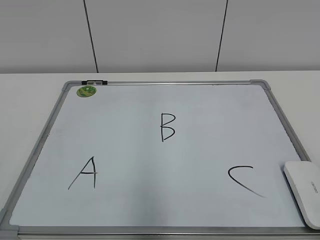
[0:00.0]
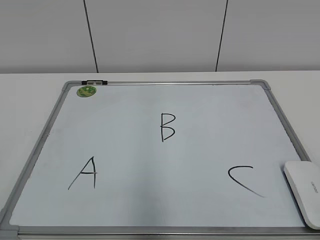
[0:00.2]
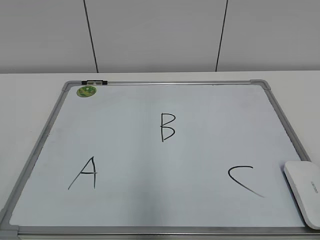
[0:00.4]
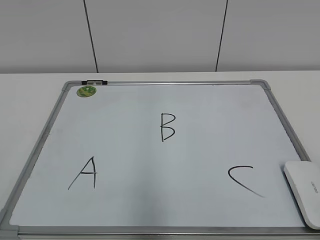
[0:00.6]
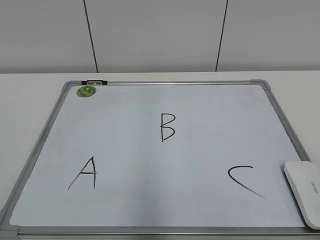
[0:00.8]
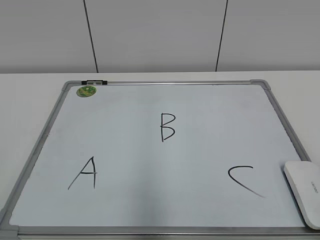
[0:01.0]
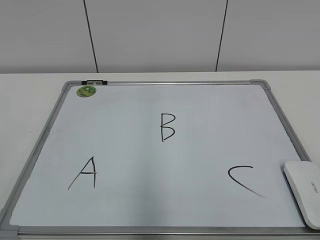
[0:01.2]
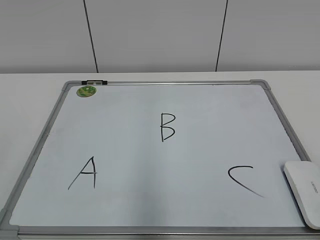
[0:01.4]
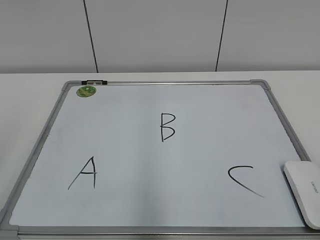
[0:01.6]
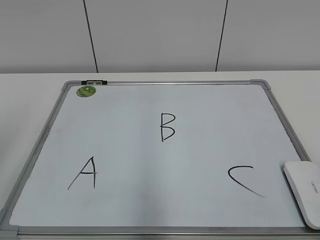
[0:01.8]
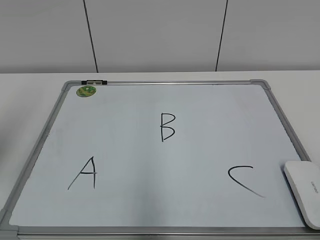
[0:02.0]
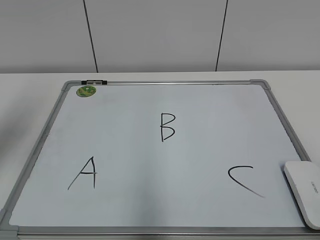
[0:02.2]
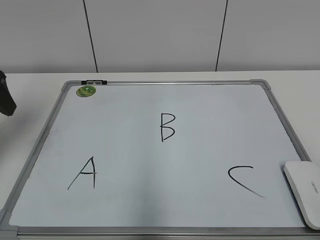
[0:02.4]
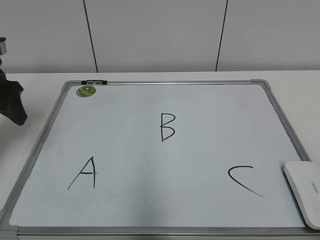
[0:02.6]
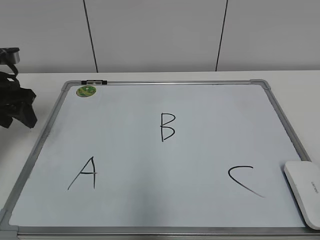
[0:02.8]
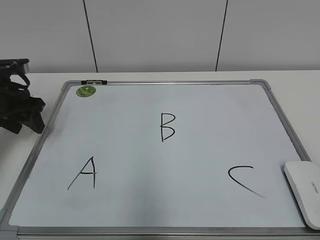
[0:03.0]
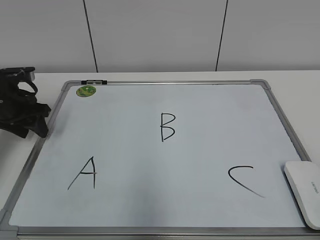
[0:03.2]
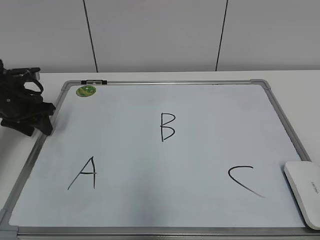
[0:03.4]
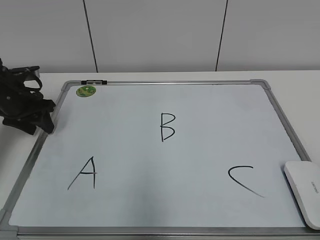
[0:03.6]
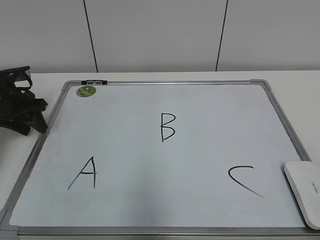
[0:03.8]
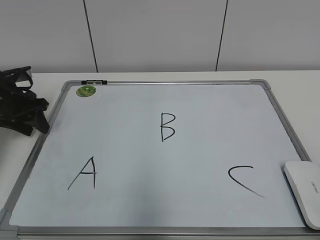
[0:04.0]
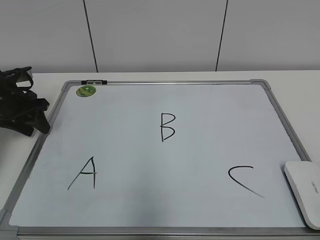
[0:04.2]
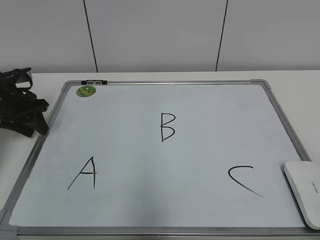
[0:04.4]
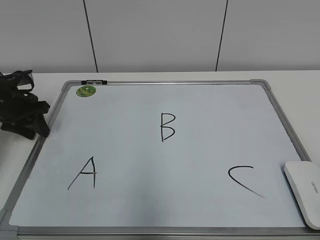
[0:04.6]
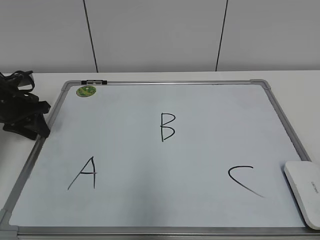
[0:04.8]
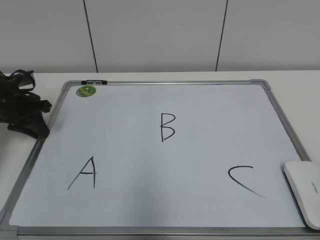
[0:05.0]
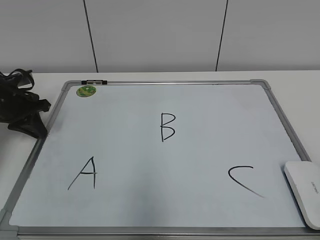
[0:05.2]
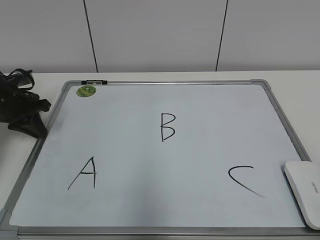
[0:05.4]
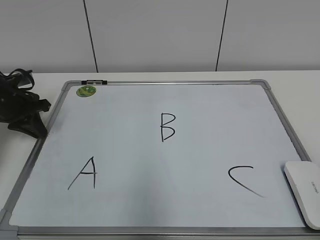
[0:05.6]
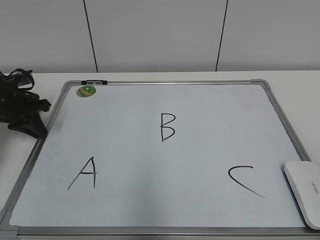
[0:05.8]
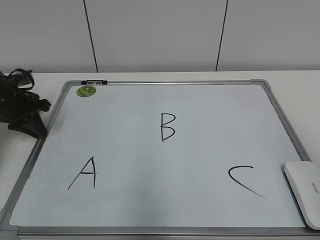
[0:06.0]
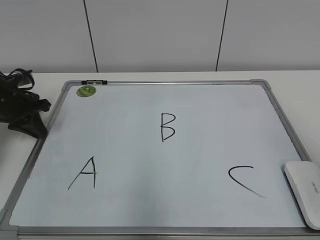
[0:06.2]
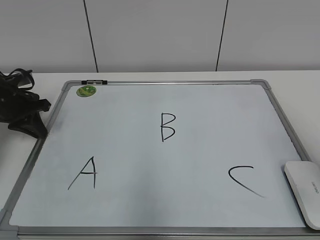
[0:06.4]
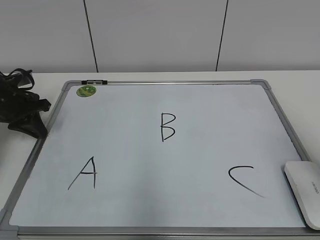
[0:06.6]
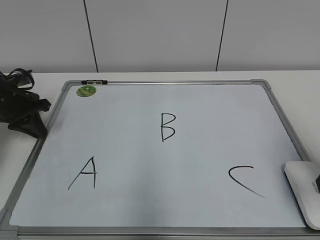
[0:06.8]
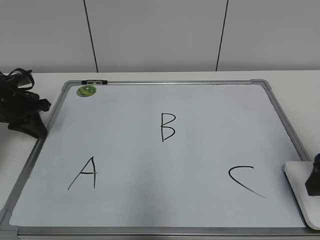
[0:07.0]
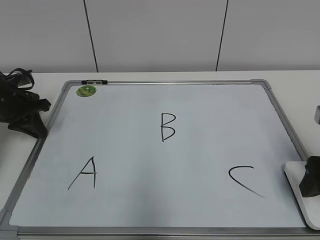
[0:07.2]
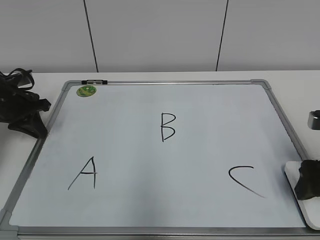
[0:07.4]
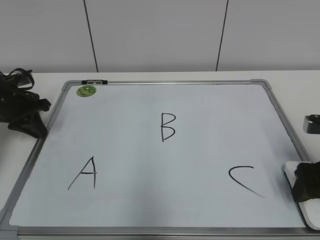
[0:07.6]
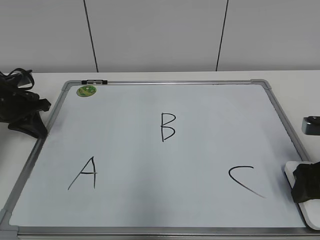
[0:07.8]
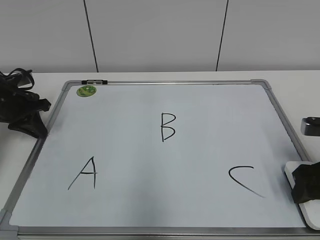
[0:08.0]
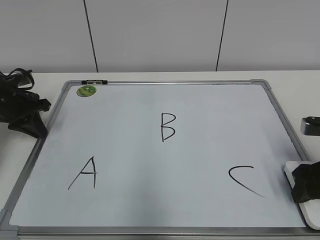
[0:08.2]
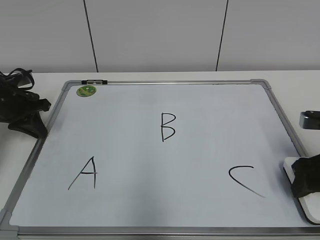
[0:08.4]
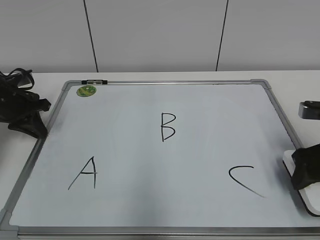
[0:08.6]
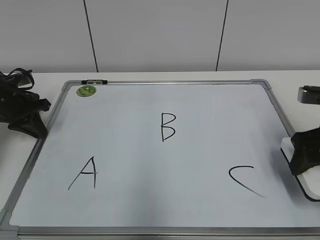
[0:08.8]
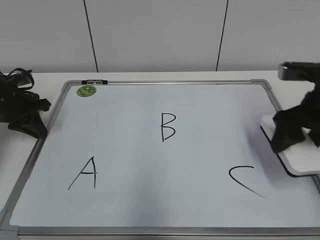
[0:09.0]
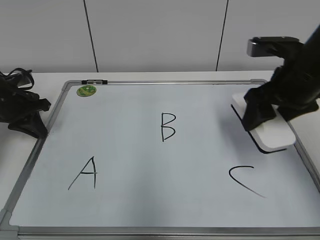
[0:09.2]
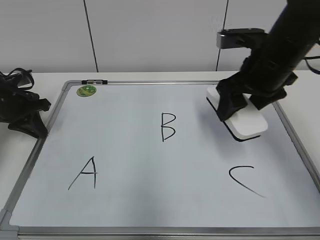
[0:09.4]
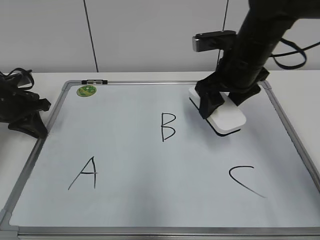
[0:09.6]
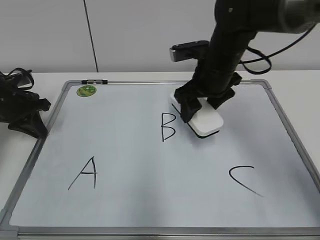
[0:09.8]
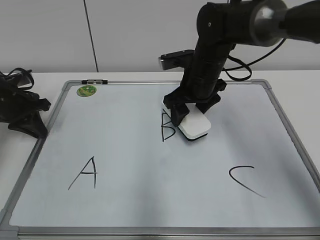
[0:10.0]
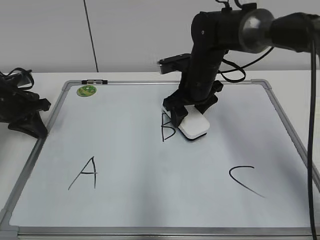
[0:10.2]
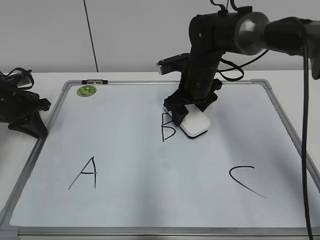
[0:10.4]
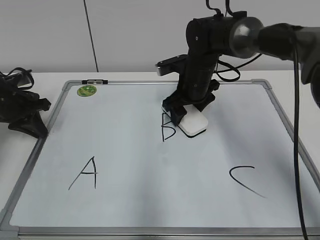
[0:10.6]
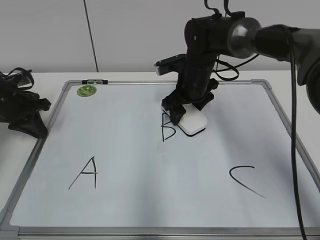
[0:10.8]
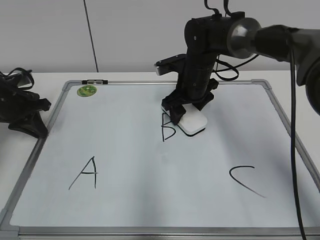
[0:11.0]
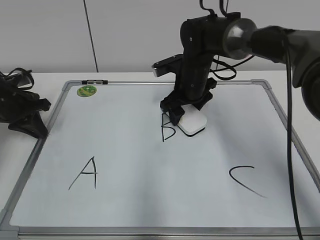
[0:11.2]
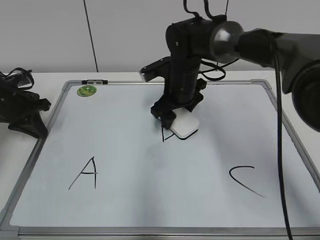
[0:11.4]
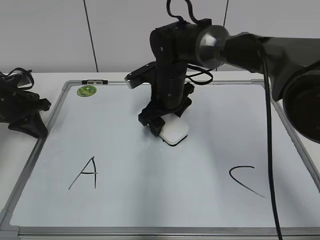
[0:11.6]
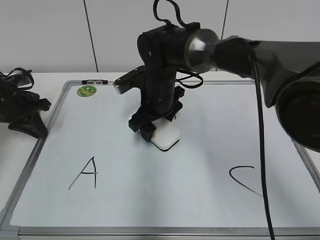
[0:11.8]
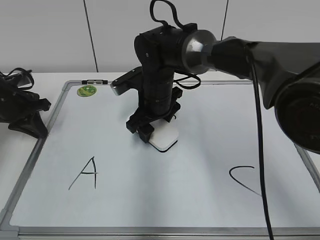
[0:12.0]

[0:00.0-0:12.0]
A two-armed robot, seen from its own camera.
Task of the whole recording: pick up the eraser on the blackboard and erase the letter "B".
Step, 0:00.0 to 0:05.2: Hold the drawing board steady with your left hand.
0:01.6 to 0:03.0: The left gripper heads forward and downward, covering about 35 cm.
0:03.0 to 0:04.4: The left gripper changes place by about 5 cm.
0:04.4 to 0:06.0: The left gripper closes its fingers.
0:06.0 to 0:07.6: The right gripper shifts some 25 cm forward and downward, and opens.
0:07.6 to 0:09.0: The right gripper is displaced upward and forward by roughly 10 cm, and closes its fingers.
0:09.0 to 0:10.4: The right gripper heads to the left and forward, covering approximately 25 cm.
0:10.4 to 0:12.0: The right gripper heads to the left, covering about 10 cm.

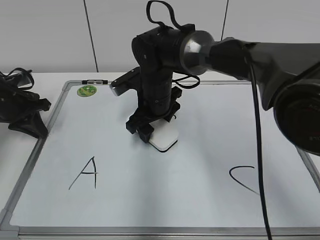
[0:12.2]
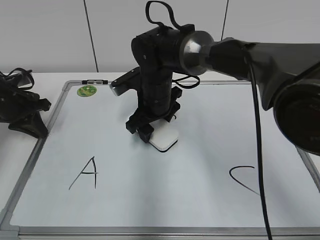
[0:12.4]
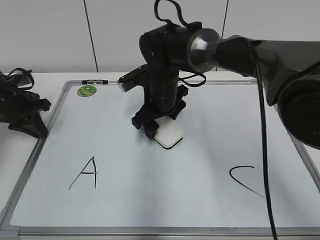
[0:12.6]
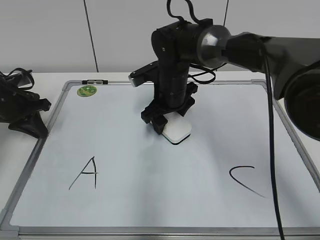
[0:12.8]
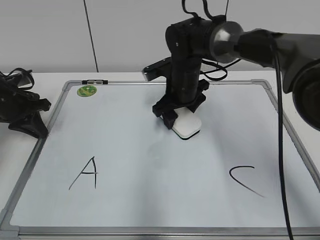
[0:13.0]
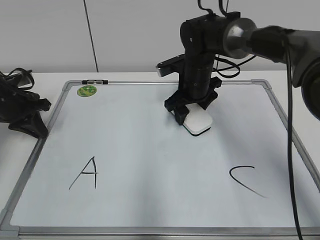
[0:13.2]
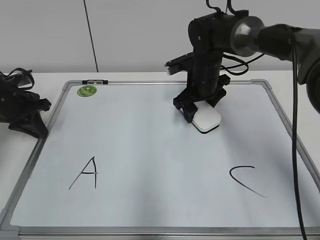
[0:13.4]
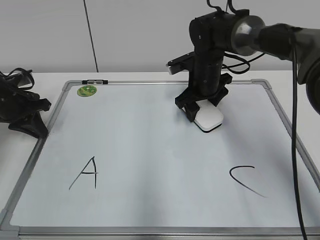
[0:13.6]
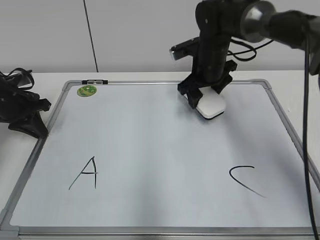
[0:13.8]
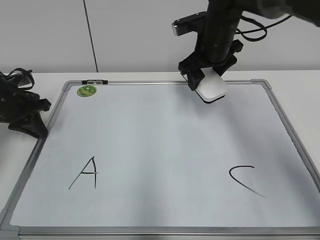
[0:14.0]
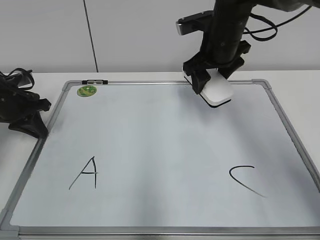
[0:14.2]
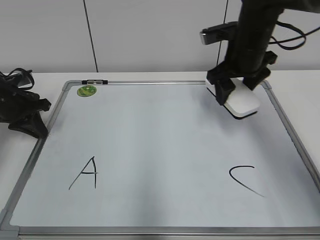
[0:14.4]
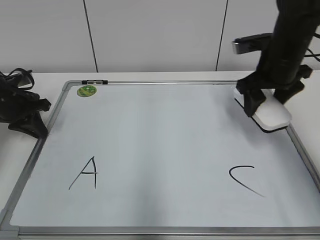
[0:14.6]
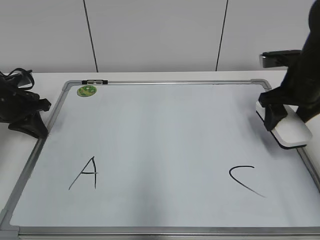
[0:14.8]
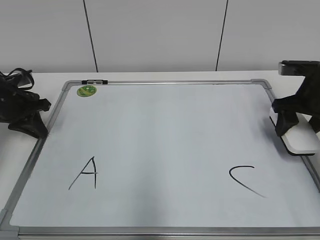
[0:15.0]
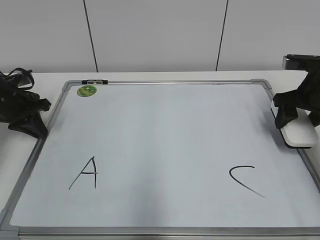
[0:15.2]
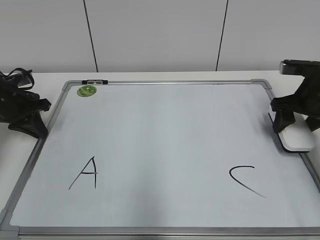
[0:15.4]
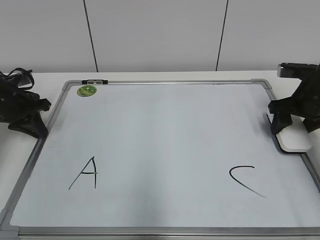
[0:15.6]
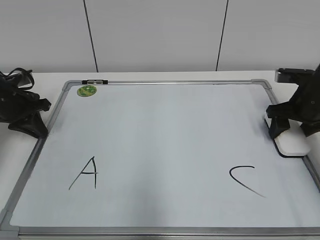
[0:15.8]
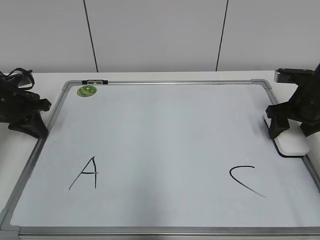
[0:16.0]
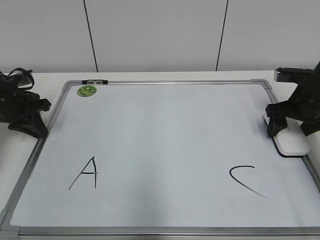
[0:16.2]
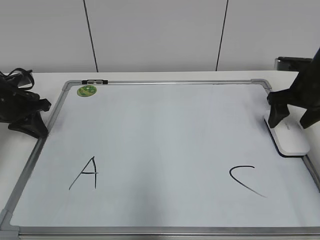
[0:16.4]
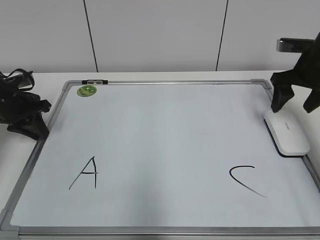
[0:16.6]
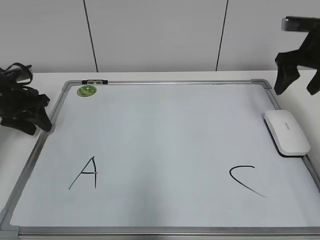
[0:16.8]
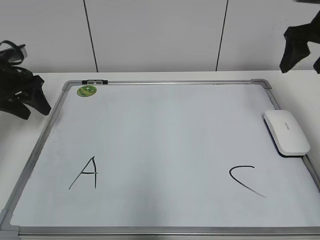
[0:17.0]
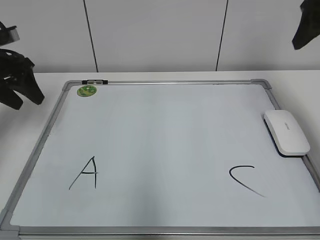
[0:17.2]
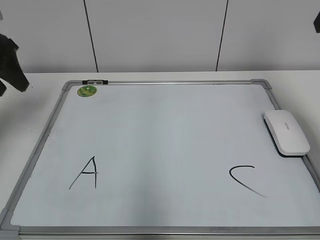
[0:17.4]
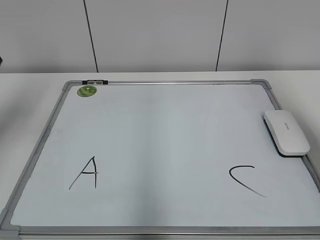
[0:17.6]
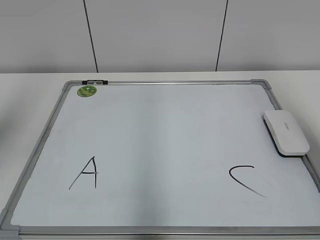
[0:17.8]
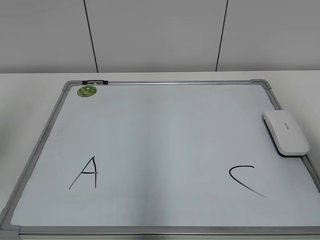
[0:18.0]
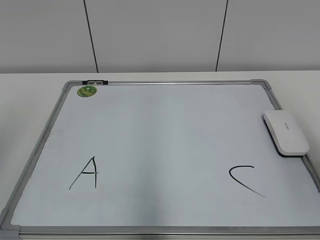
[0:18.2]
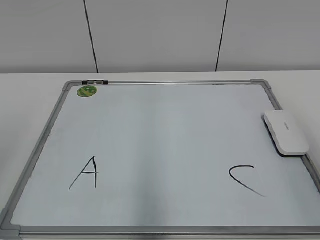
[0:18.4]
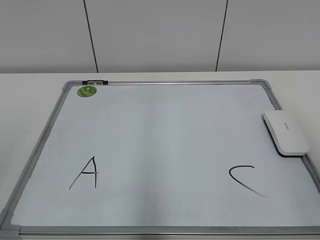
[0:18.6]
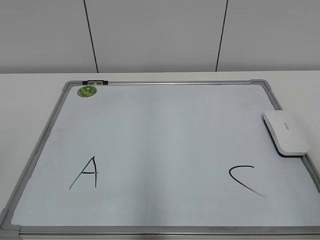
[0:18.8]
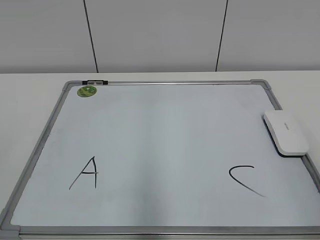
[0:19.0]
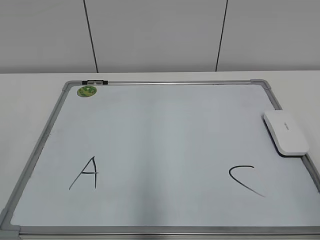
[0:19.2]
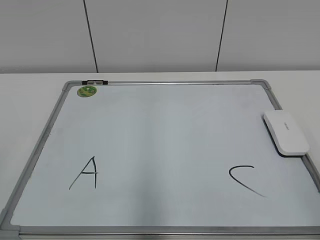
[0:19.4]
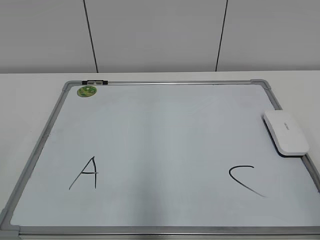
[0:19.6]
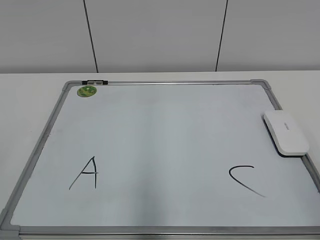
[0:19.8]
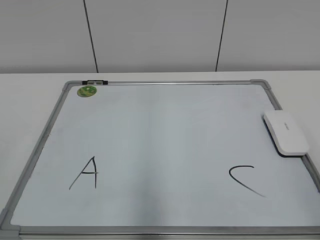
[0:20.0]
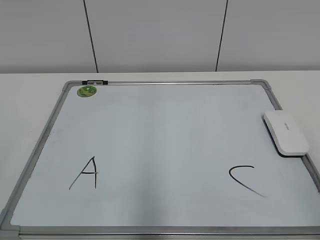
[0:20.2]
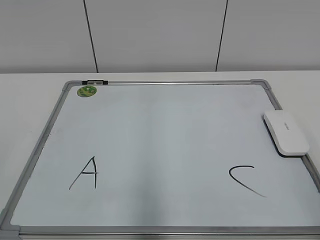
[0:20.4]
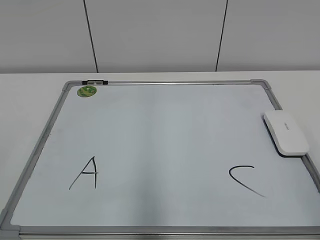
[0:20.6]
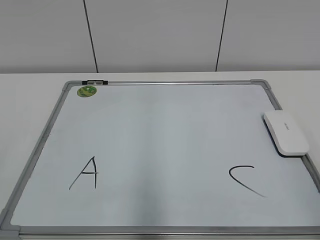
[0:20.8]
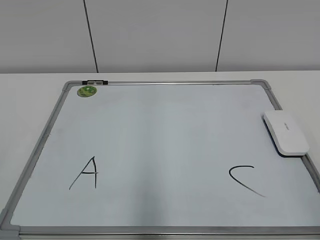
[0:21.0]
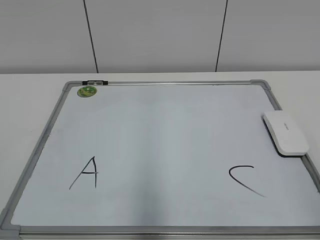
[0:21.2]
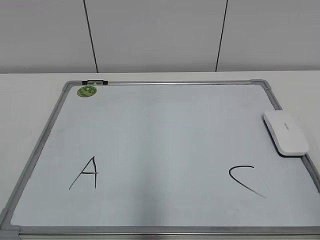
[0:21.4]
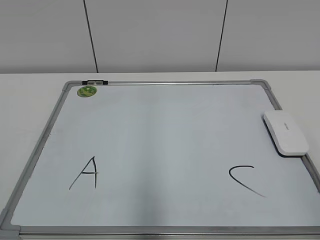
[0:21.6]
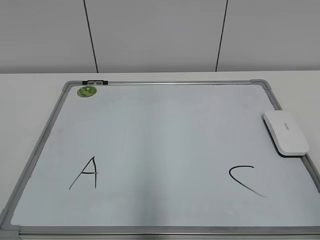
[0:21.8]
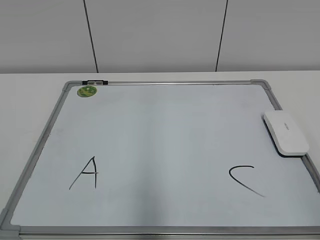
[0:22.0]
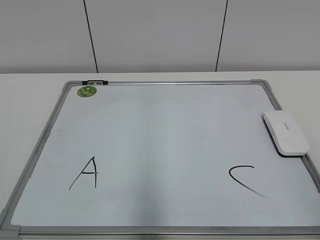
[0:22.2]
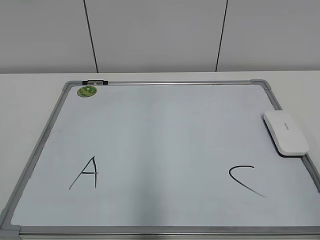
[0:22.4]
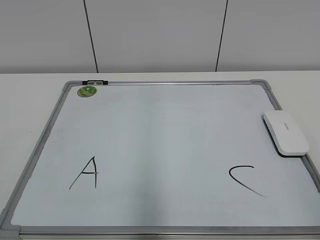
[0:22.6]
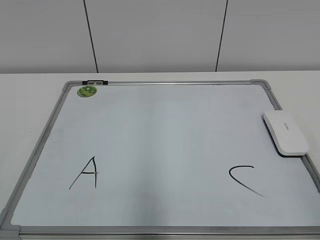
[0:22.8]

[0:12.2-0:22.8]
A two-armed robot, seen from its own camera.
Task of the whole recording: pick up the eraser on the blackboard and erase the letter "B".
Step, 0:13.6 to 0:16.2: Put down the eraser with your right hand.
0:12.2 to 0:13.8: The right gripper is displaced to the right and forward by approximately 15 cm.
0:13.8 to 0:15.2: The right gripper heads to the right and backward, covering roughly 20 cm.
0:15.2 to 0:16.8: The right gripper heads upward, covering some 5 cm, and opens, while the left gripper opens its fingers.
0:16.8 to 0:18.2: The two grippers go some 35 cm backward and upward.
0:21.2 to 0:22.8: The two grippers keep their place.
